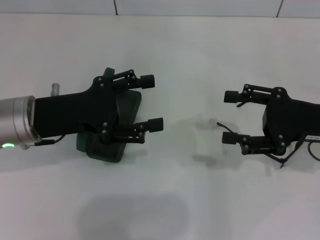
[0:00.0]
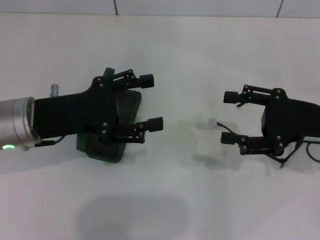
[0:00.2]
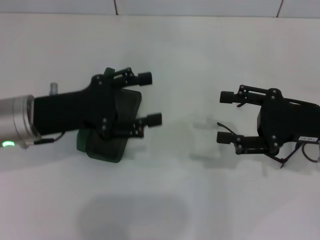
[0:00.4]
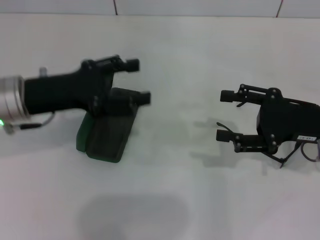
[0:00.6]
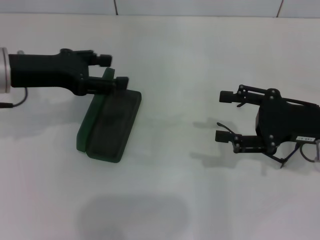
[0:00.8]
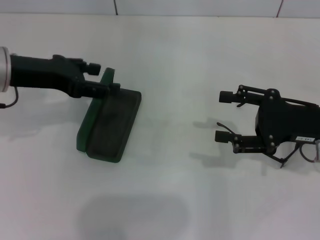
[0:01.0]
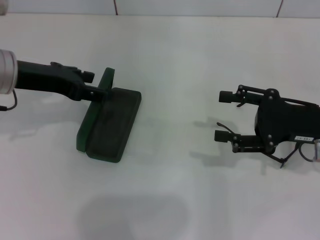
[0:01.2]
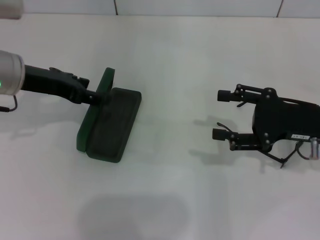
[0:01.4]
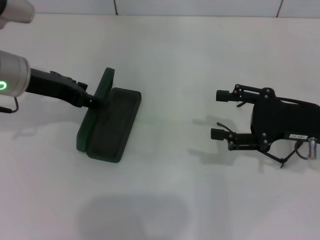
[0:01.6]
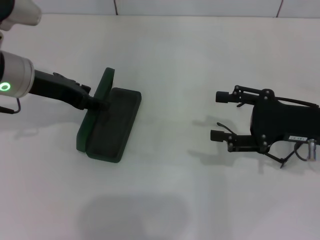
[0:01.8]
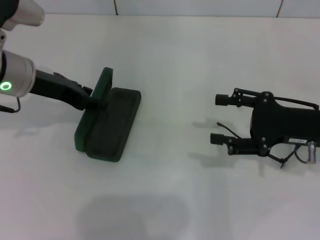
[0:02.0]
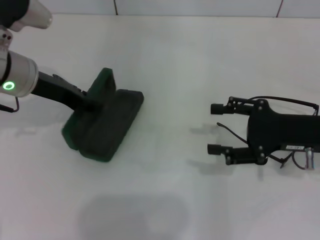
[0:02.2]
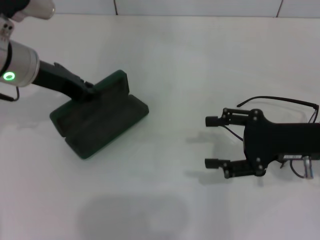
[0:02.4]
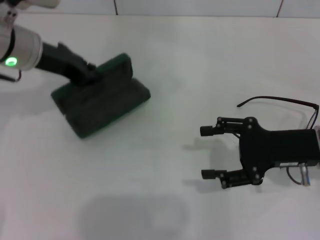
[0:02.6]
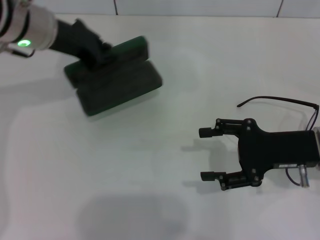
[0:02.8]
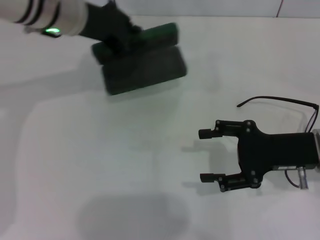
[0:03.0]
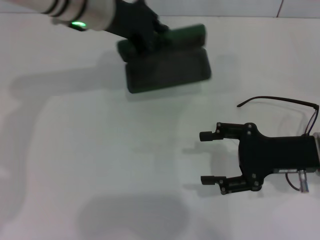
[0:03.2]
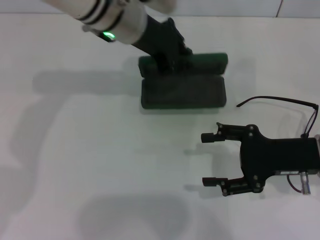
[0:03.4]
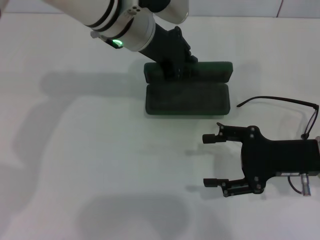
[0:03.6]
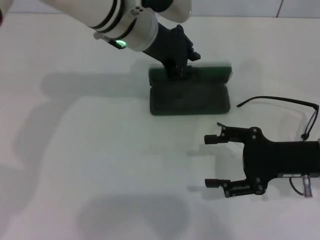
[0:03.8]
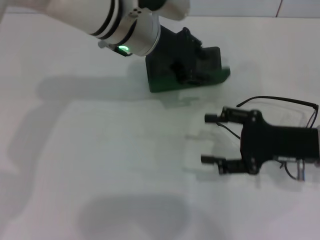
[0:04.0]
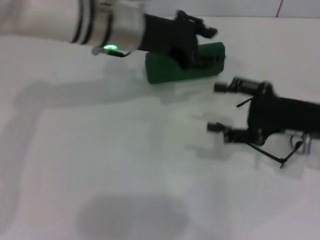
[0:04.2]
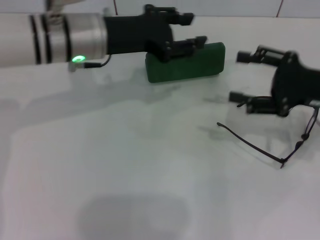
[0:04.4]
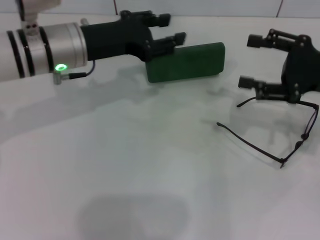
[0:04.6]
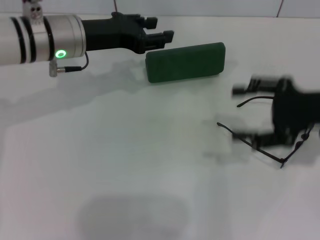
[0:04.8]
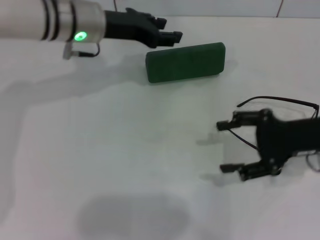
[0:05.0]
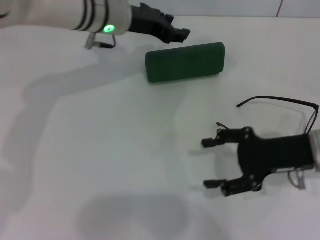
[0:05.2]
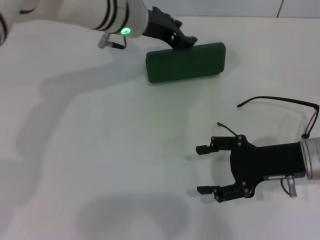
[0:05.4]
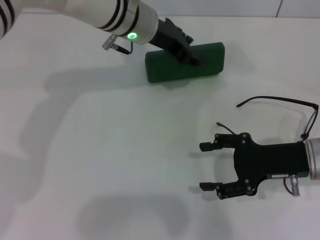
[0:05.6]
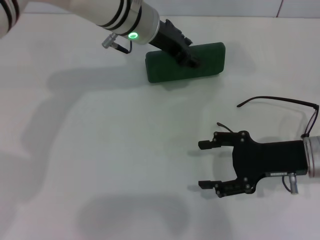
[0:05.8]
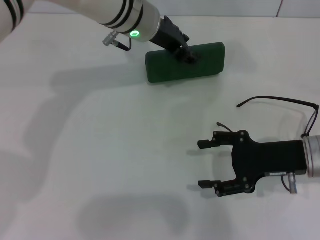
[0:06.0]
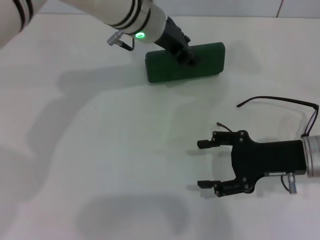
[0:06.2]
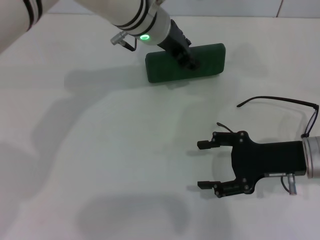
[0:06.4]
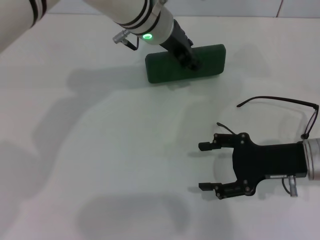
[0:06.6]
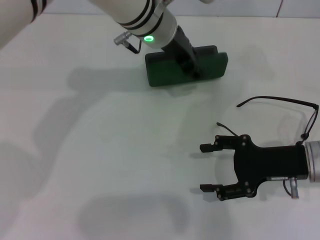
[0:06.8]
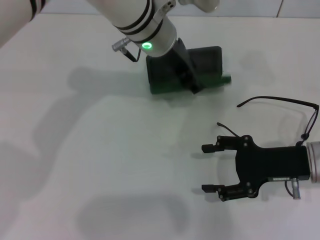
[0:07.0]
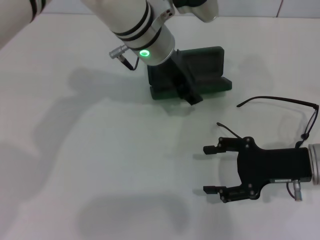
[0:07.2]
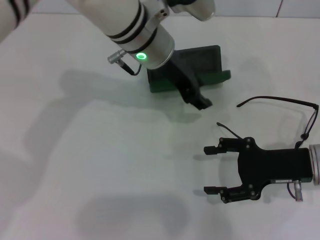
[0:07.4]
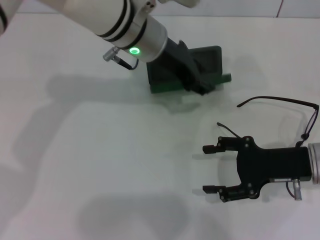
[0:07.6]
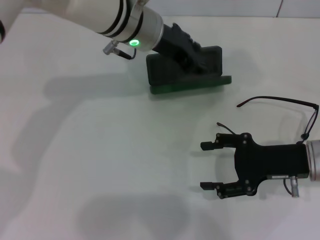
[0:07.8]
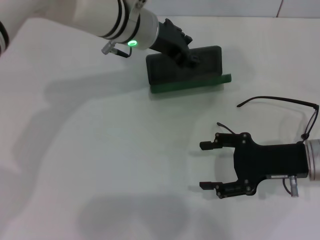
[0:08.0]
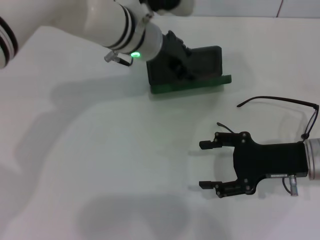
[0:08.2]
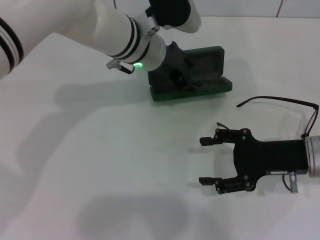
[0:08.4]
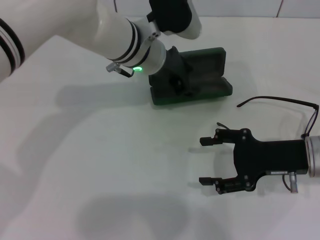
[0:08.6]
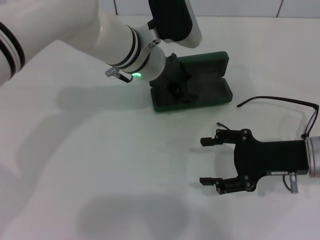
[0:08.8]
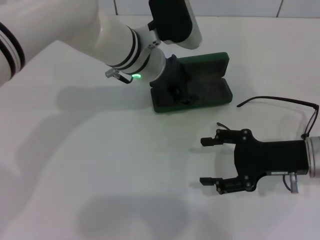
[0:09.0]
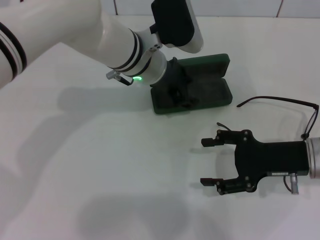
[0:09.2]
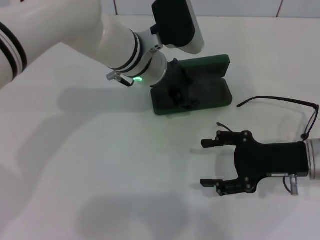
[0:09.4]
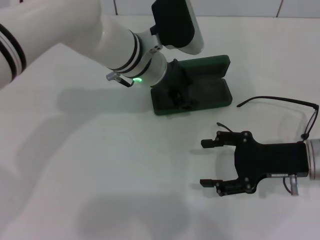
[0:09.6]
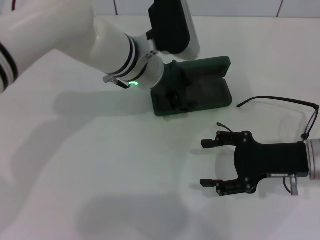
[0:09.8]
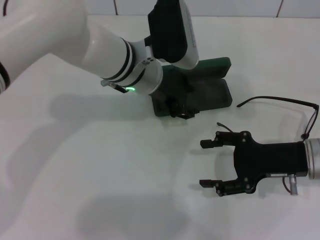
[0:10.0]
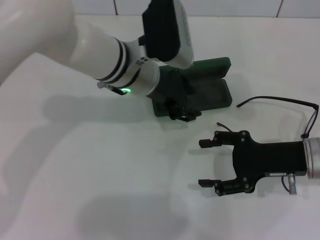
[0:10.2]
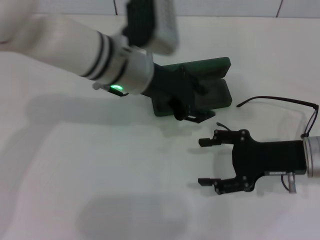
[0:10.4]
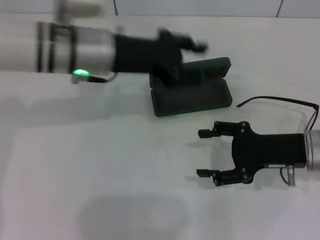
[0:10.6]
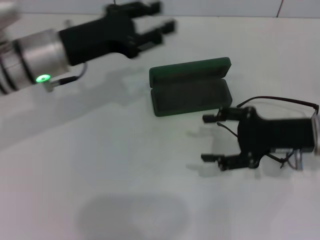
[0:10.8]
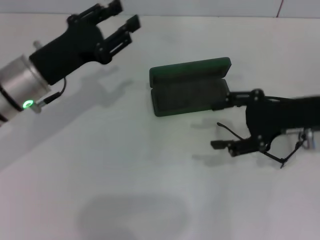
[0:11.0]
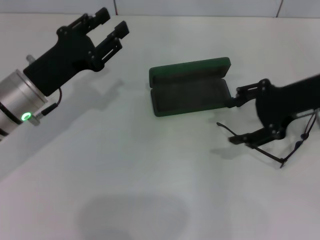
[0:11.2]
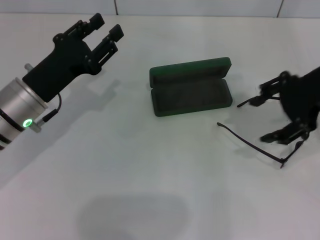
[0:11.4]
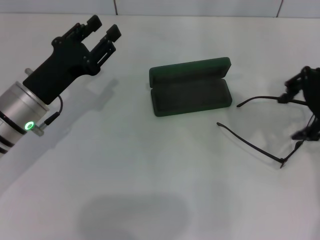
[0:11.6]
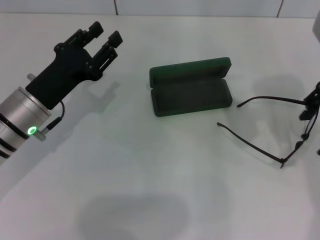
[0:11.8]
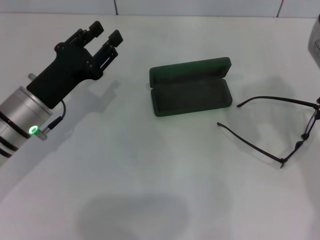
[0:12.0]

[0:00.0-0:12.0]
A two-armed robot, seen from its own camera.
Step, 0:00.0 to 0:02.2: Grab the glasses case with your left hand.
Step, 0:02.4 to 0:10.0: Place the glasses case in the center of the table with your left hand.
0:00.0 to 0:01.6: The left gripper is displaced forward by roughly 5 cm.
0:01.6 to 0:03.0: The left gripper is displaced to the right and forward by approximately 10 cm, and closes its fingers.
0:03.0 to 0:04.4: The right gripper shifts approximately 5 cm upward; the left gripper moves roughly 10 cm to the right and comes back, and opens.
0:04.4 to 0:06.0: The right gripper is displaced downward and to the left by approximately 10 cm. Meanwhile the left gripper travels to the right and forward by some 10 cm.
0:06.0 to 0:09.0: The grippers make only small movements.
0:09.0 to 0:10.4: The left gripper shifts by about 5 cm.
0:10.4 to 0:12.0: The left gripper moves to the left, downward and backward, approximately 20 cm, while the right gripper goes approximately 15 cm upward.

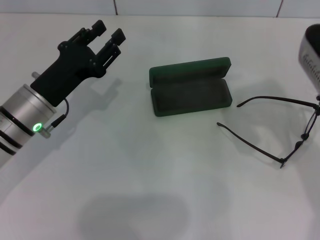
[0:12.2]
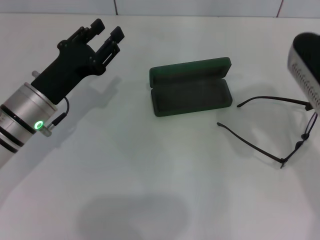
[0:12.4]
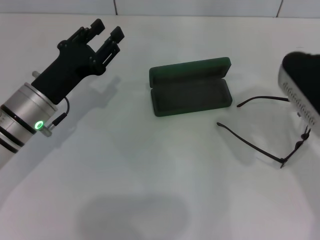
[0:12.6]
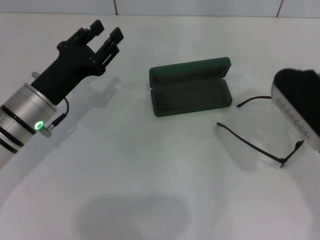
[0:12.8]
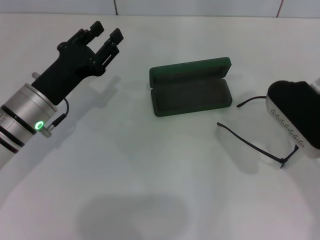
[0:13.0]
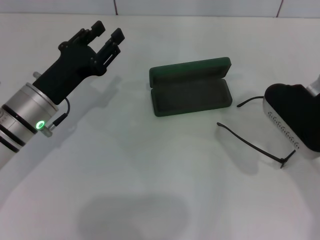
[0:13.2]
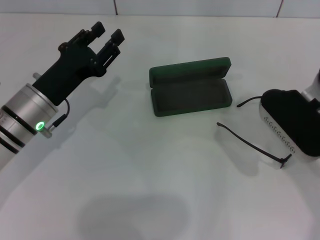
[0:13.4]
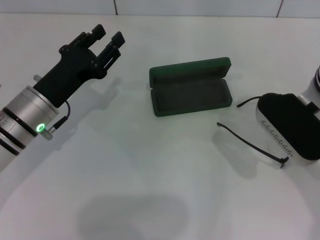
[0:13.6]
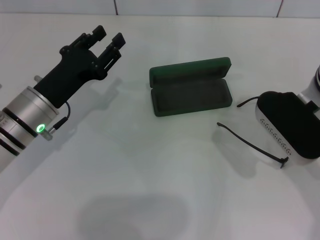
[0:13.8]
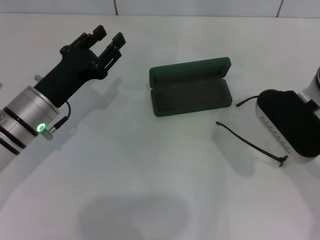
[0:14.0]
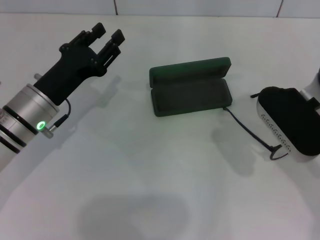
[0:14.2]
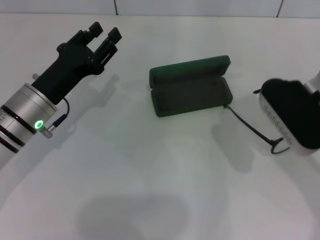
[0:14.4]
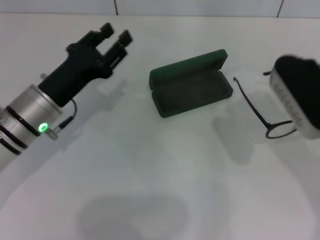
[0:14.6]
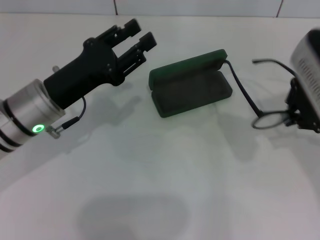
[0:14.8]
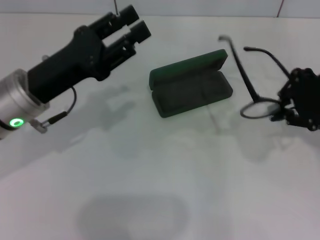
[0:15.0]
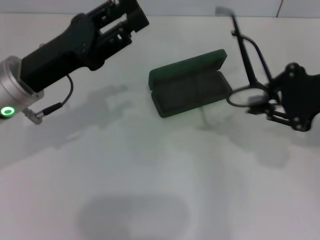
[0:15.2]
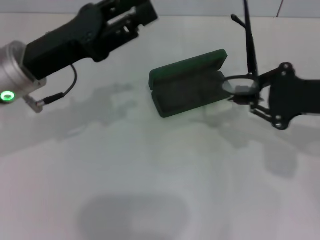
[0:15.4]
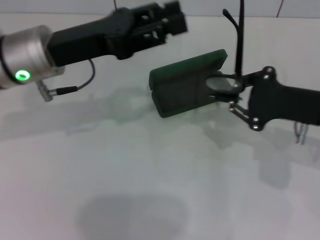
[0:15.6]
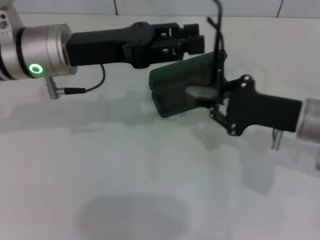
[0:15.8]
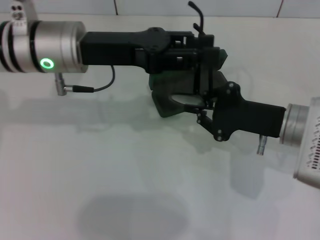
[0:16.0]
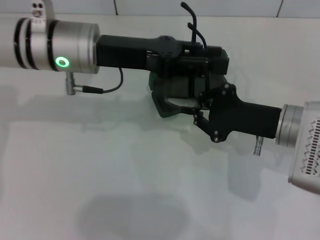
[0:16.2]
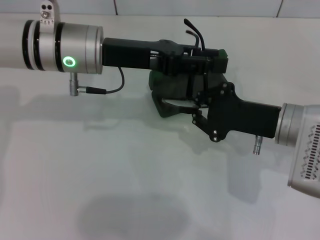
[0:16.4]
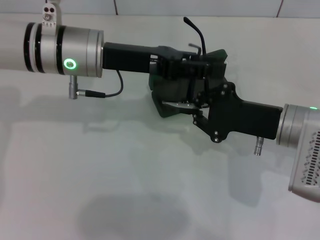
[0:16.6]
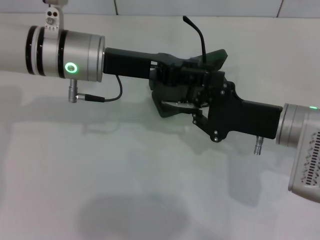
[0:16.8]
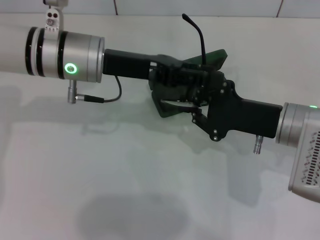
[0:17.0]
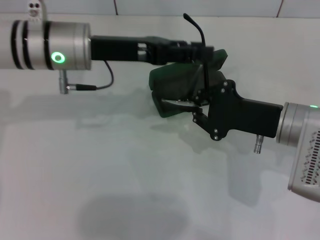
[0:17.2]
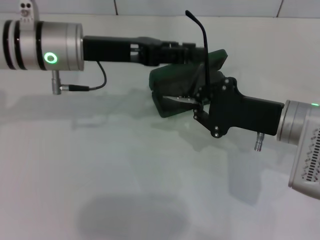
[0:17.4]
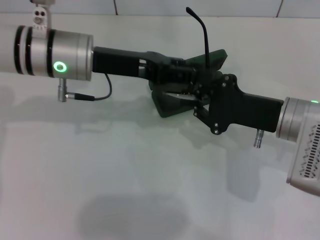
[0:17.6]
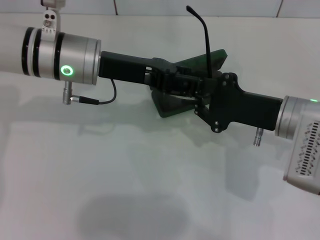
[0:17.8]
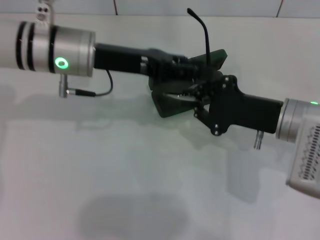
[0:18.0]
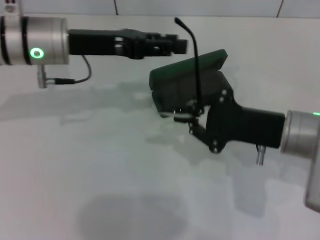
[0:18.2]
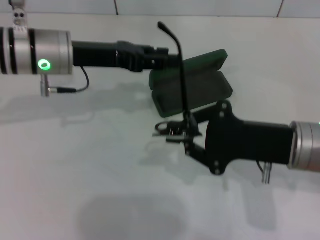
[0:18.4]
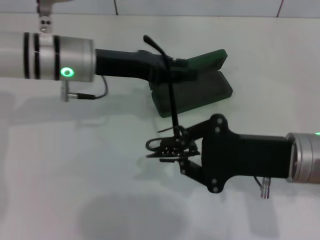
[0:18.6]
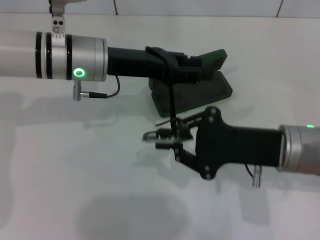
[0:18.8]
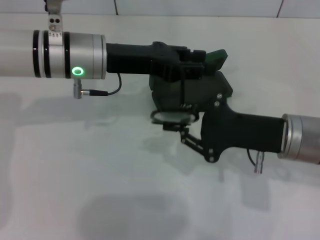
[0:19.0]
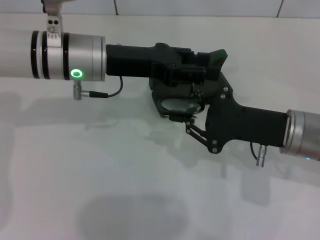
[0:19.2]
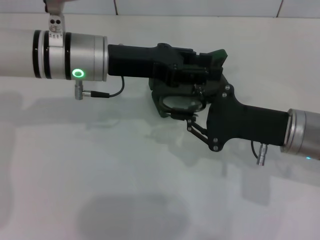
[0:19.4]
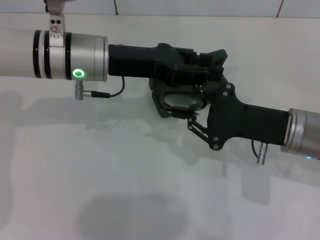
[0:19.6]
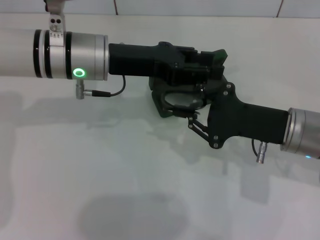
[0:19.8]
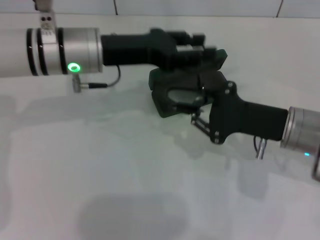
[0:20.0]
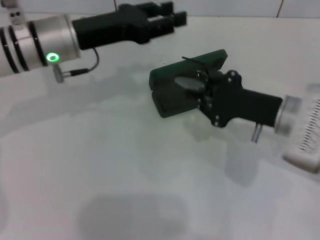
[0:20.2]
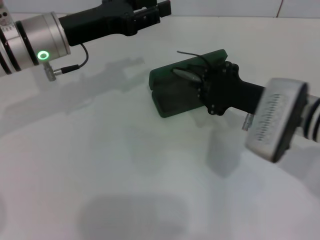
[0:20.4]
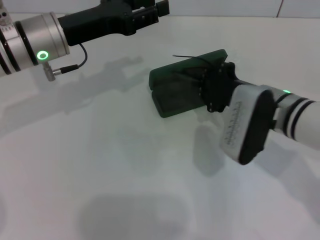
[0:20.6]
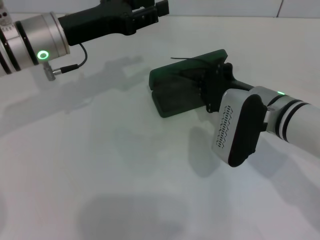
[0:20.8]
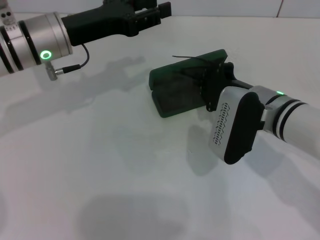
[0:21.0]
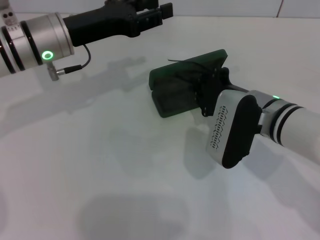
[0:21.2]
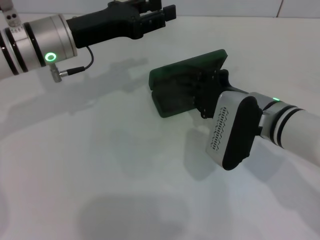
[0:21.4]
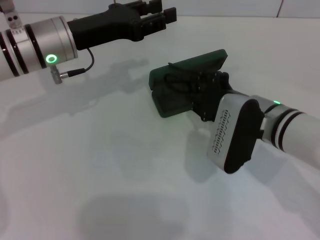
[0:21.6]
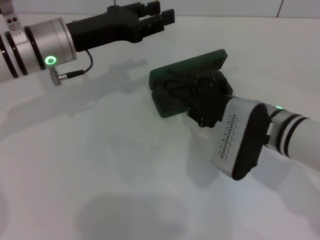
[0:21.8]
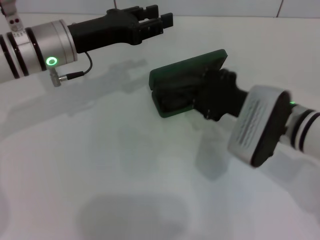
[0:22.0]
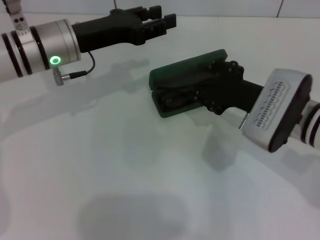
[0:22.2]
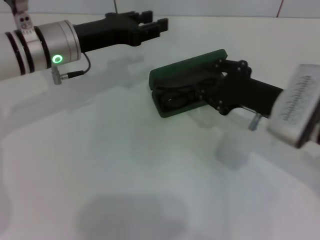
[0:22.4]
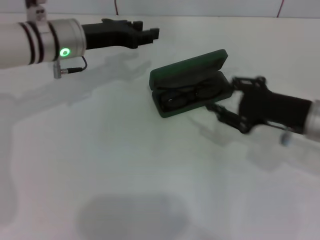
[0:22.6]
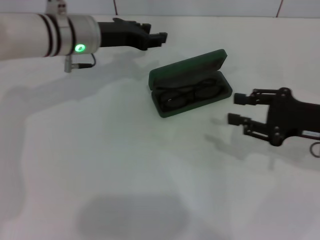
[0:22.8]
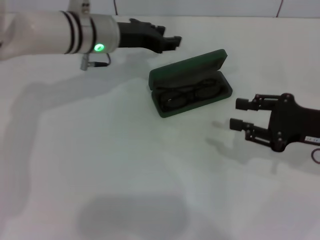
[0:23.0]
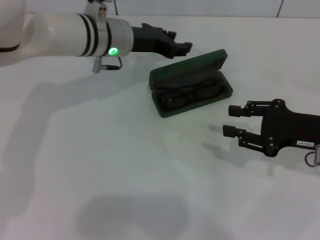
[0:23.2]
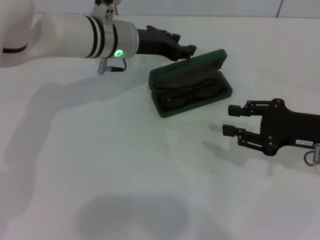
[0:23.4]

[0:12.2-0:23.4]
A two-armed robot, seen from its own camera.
Step, 0:12.2 to 0:14.2: Grab the eyeglass frame with your right hand.
Step, 0:14.4 to 0:19.8: Lift the glasses with your right hand.
Step, 0:20.0 to 0:22.0: Put the glasses into the case with your right hand.
0:12.2 to 0:13.8: The right gripper is displaced downward by approximately 10 cm.
0:13.8 to 0:15.4: The left gripper shifts approximately 10 cm upward; the right gripper is displaced to the right by approximately 10 cm, and closes its fingers.
0:15.4 to 0:17.0: The right gripper heads to the left and downward, covering approximately 10 cm. The left gripper shifts approximately 10 cm to the right and forward.
0:18.6 to 0:20.2: The right gripper is displaced forward by approximately 5 cm.
0:20.2 to 0:21.8: The right gripper moves to the left, approximately 5 cm, and opens its fingers.
0:21.8 to 0:23.4: The left gripper shifts approximately 10 cm to the right and forward. Meanwhile the right gripper heads to the right, covering about 15 cm.
